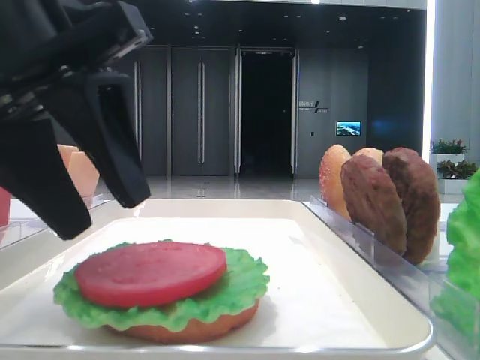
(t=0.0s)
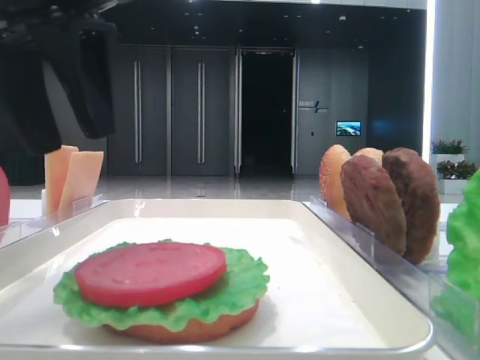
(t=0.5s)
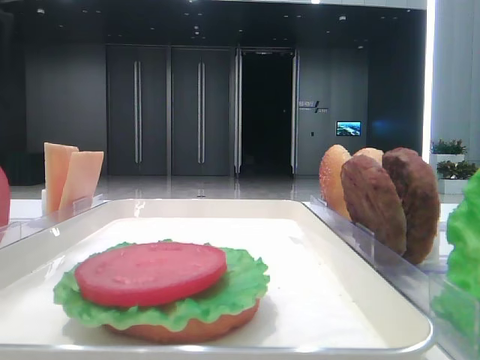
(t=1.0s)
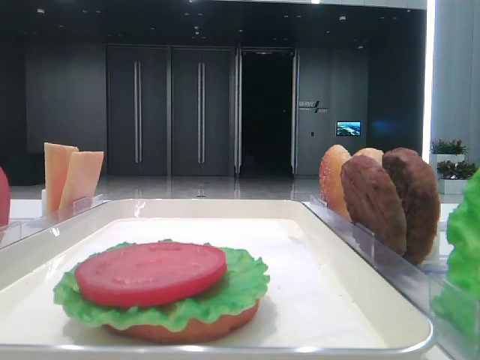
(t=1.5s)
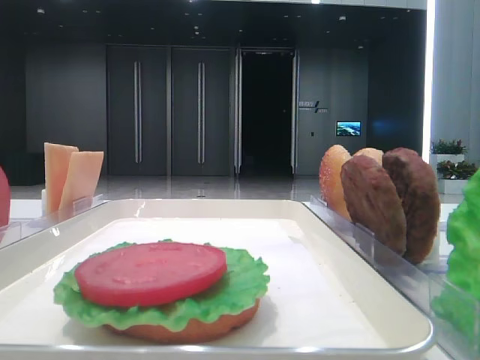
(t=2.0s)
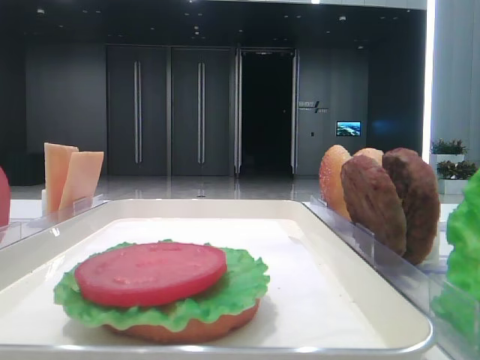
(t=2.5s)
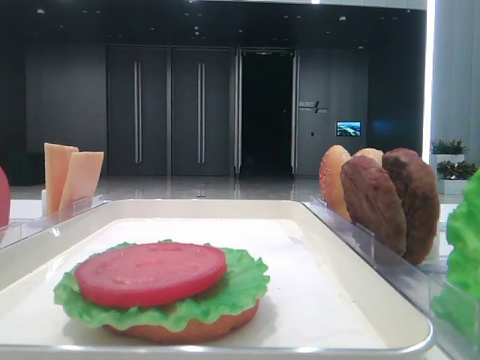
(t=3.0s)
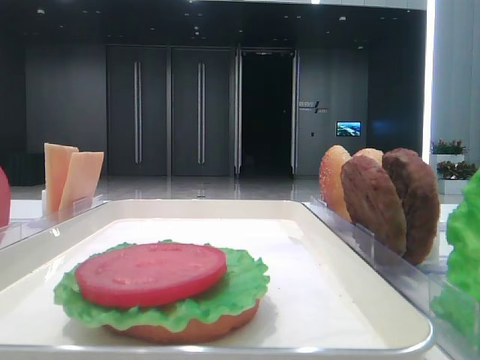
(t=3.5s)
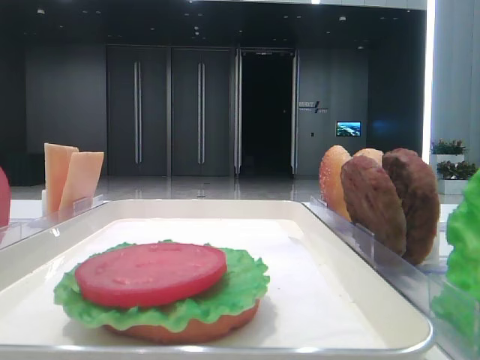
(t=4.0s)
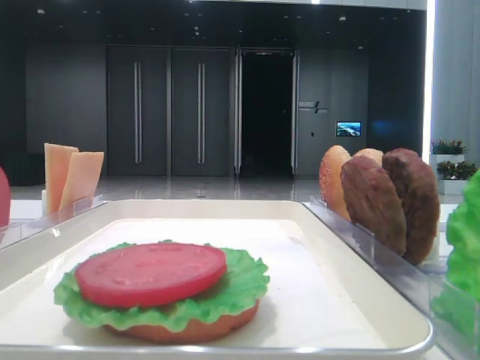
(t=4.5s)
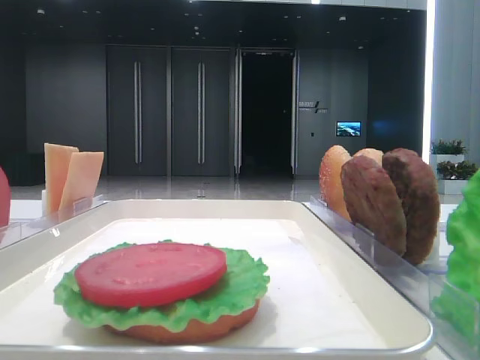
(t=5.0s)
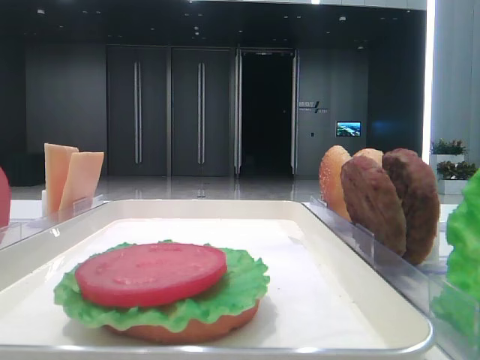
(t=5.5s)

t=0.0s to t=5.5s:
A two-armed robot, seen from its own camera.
t=0.0s to t=2.0s: The left gripper is displaced to the left and upward by about 20 cm.

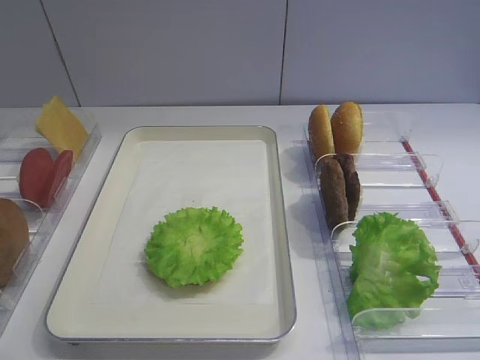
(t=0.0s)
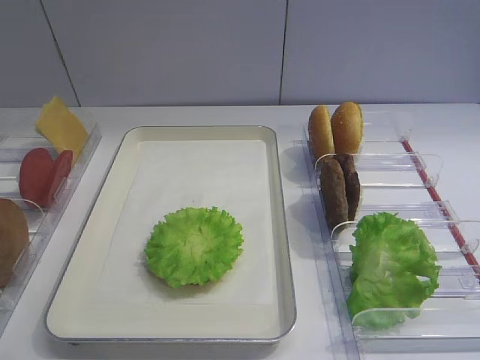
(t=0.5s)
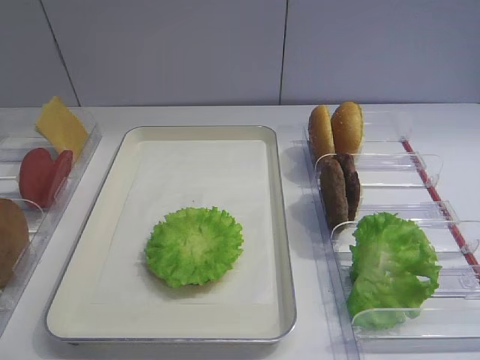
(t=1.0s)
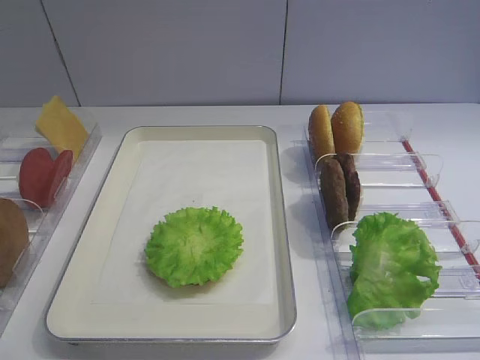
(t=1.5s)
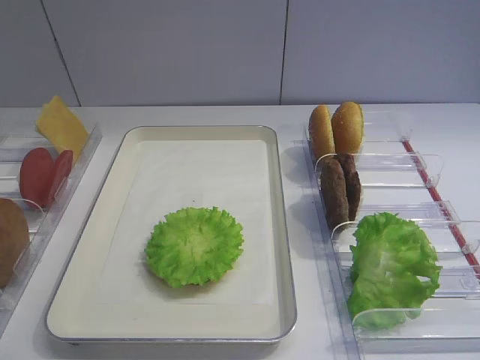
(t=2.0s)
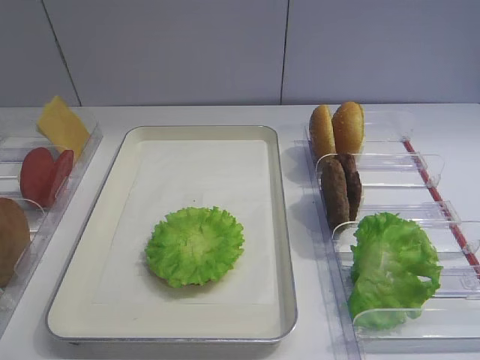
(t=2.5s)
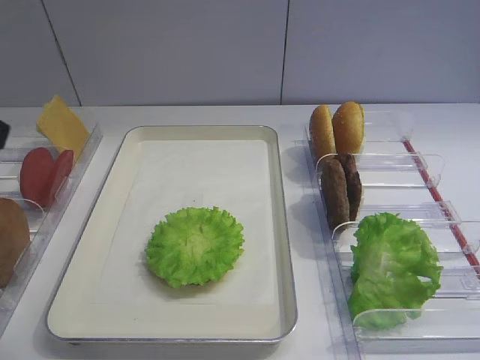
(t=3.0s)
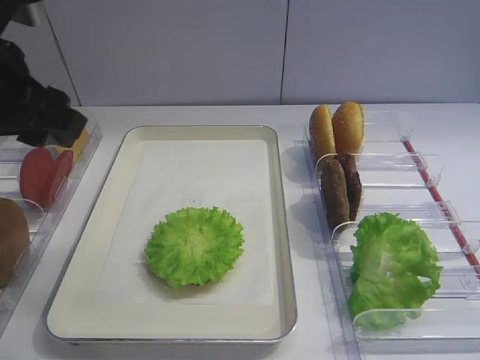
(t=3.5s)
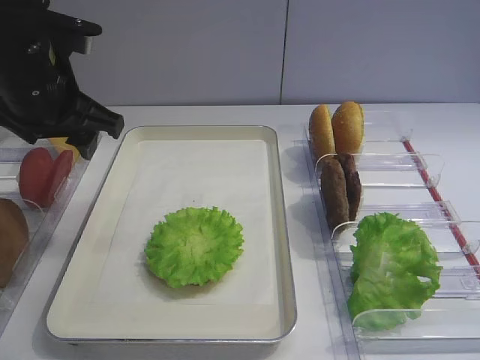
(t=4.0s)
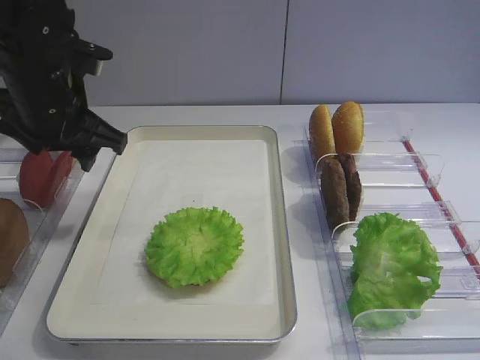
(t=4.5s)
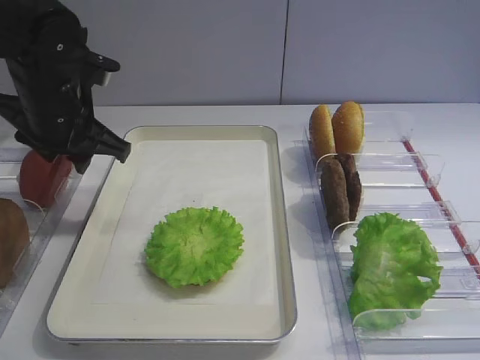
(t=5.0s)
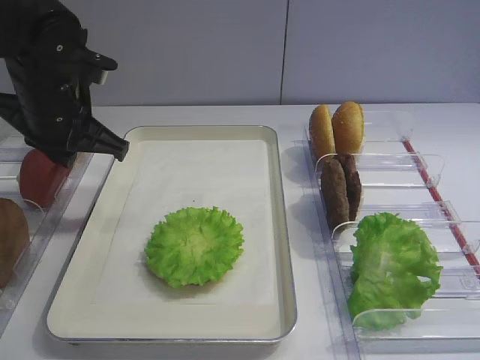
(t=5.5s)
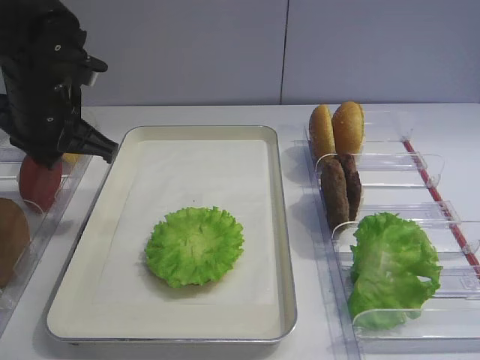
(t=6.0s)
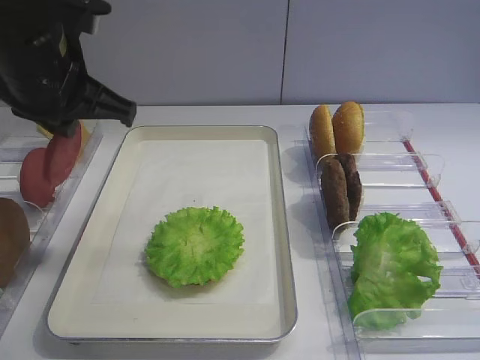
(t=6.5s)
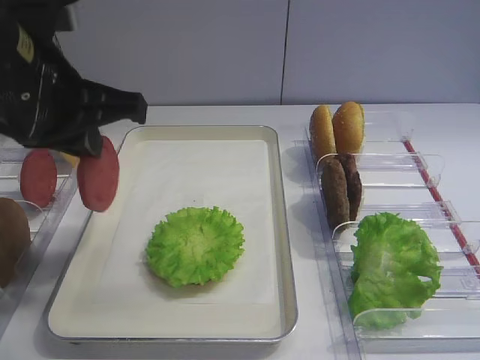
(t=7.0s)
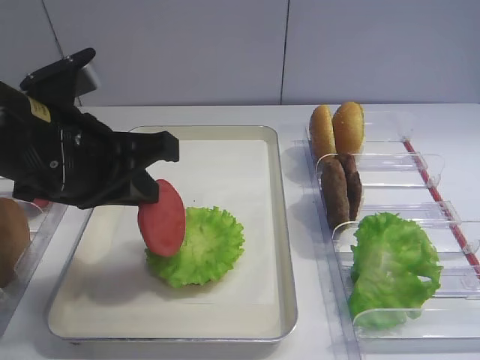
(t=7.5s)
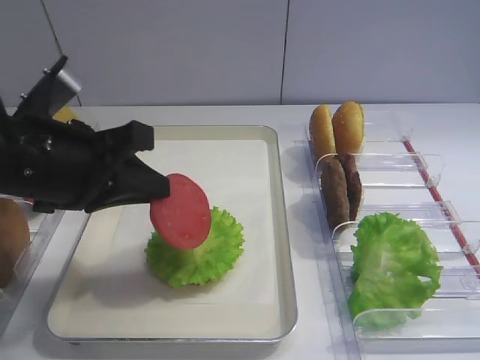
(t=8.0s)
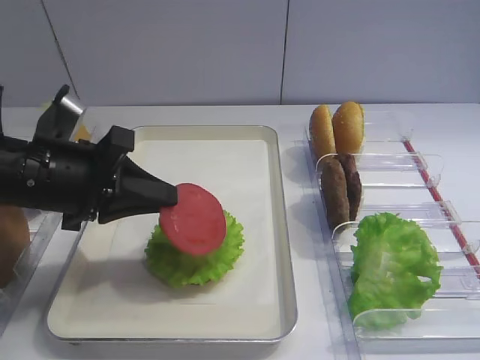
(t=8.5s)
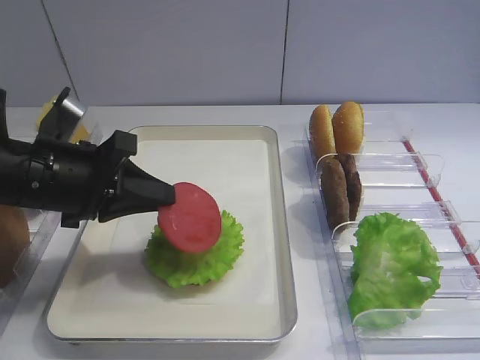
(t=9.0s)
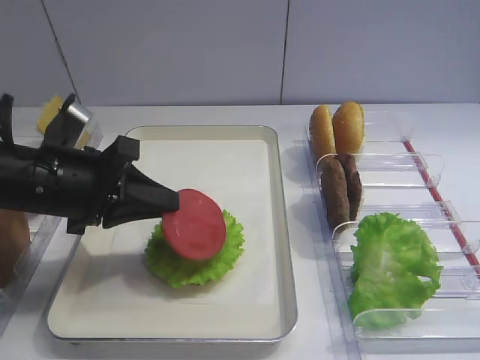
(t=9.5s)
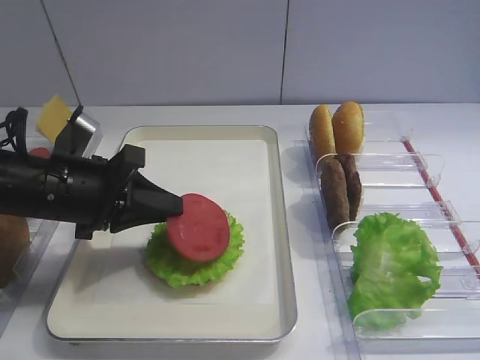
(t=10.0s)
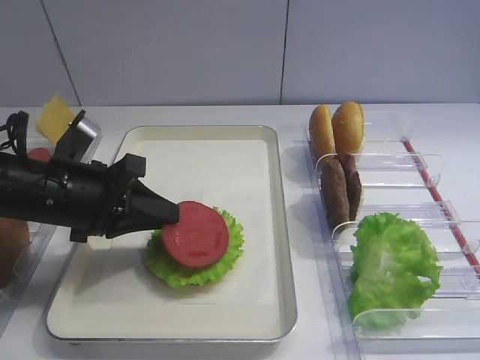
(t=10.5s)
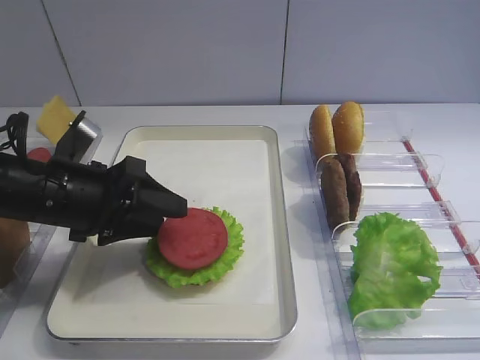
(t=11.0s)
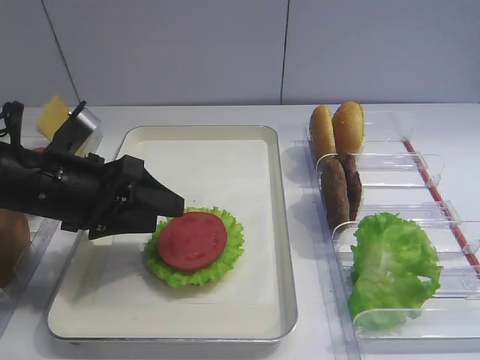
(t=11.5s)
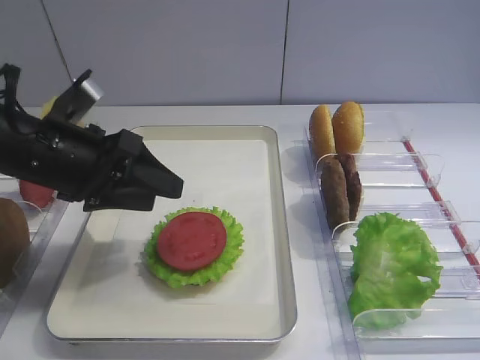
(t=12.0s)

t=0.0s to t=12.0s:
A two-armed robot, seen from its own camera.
Step, t=0.0s to t=6.0s: Pick up the tomato slice with the left gripper.
Step, t=6.5s to t=11.5s: Place the tomato slice on the lettuce leaf with the left gripper.
t=2.0s to t=4.0s: The left gripper moves forward, some 35 cm.
t=4.0s to t=6.0s: The left gripper closes up.
t=6.0s to t=8.0s: The left gripper travels backward by roughly 10 cm.
t=8.0s to t=10.0s: The left gripper goes about 5 cm downward.
t=10.0s to t=12.0s: The left gripper opens.

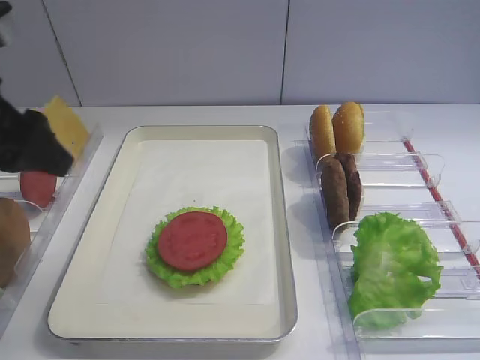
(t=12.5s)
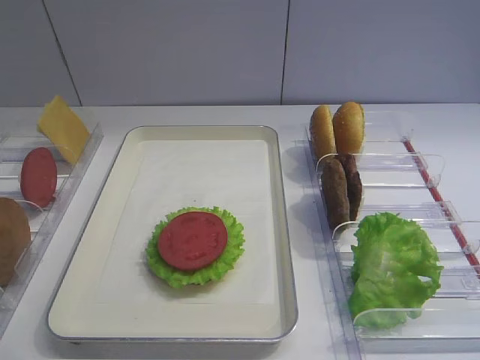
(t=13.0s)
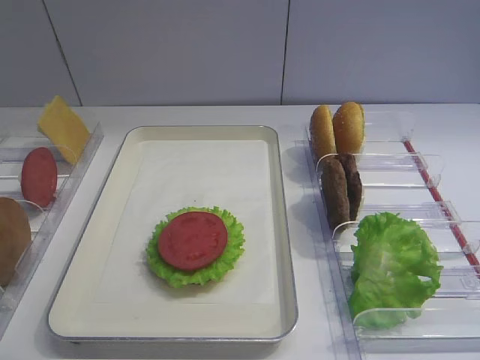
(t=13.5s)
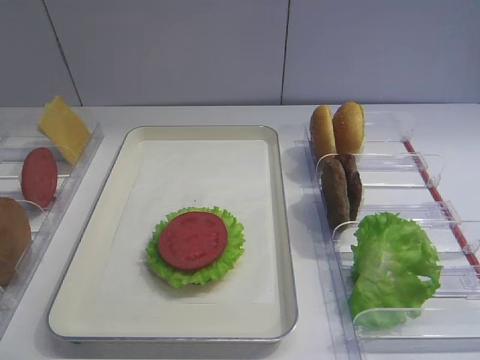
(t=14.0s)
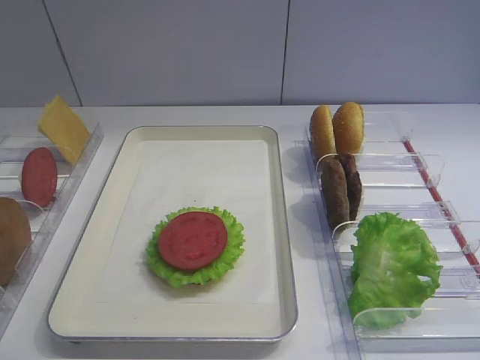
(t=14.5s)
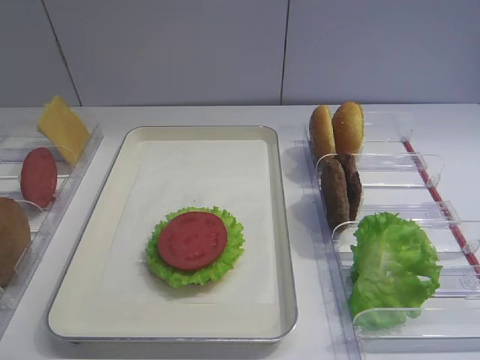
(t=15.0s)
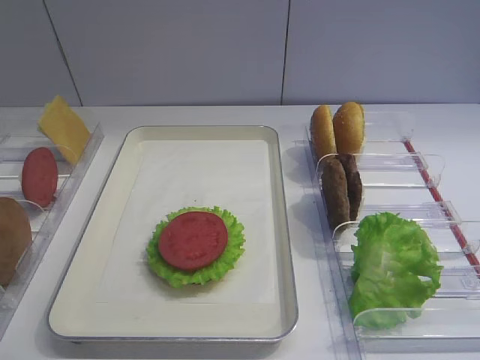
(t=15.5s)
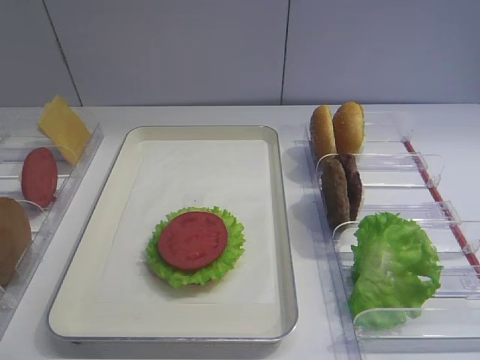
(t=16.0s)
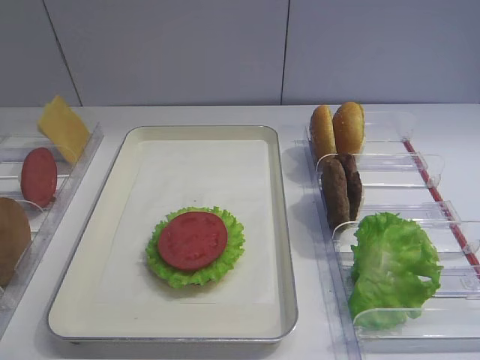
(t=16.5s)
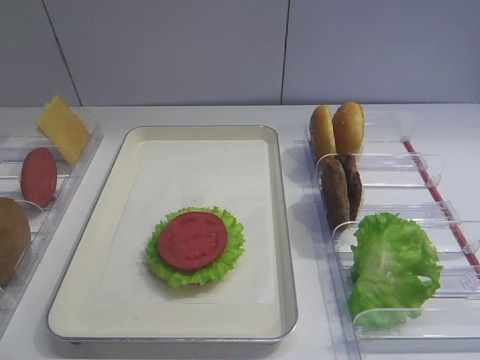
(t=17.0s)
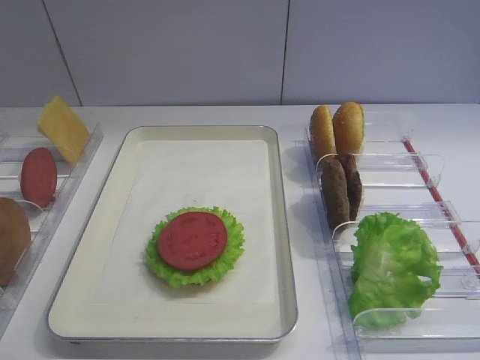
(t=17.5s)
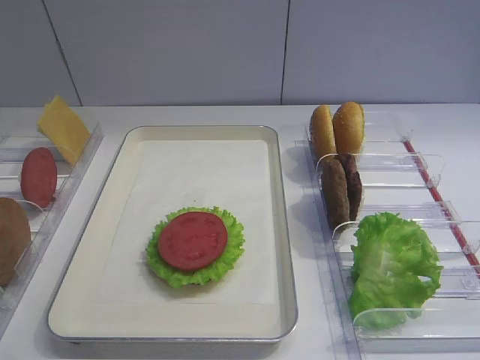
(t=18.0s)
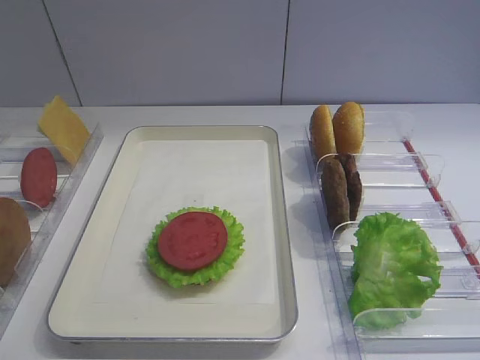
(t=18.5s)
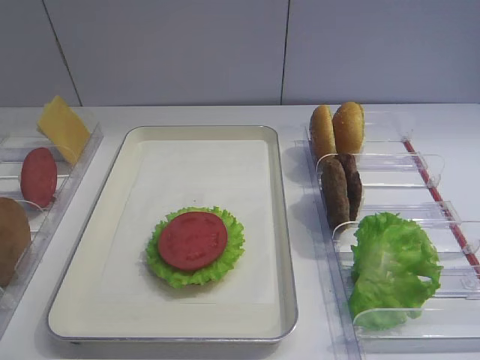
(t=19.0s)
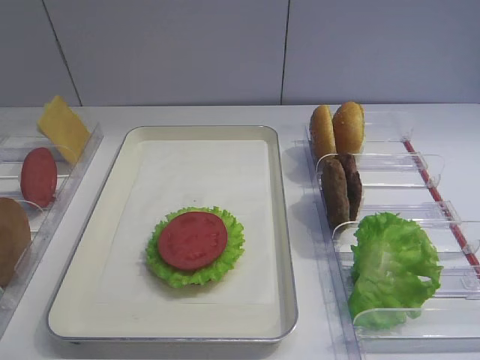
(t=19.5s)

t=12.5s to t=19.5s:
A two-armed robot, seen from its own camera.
t=12.5s to t=14.5s: The left gripper moves backward, about 25 cm.
t=17.5s to t=19.5s: Both grippers stay about where they are.

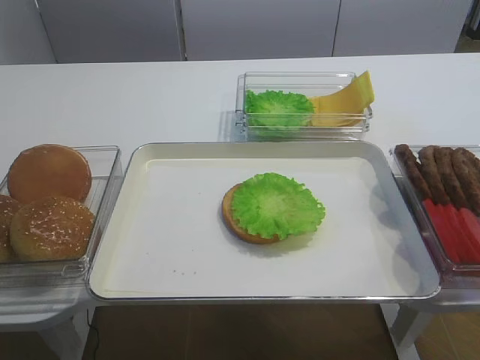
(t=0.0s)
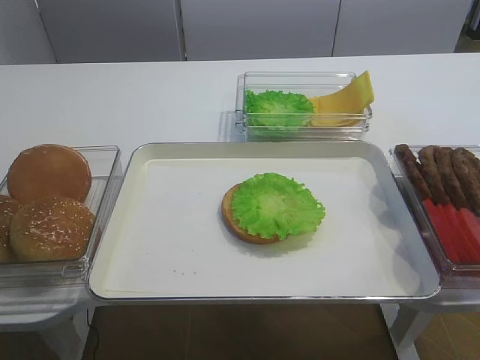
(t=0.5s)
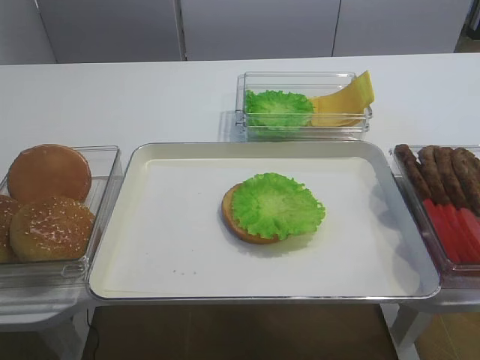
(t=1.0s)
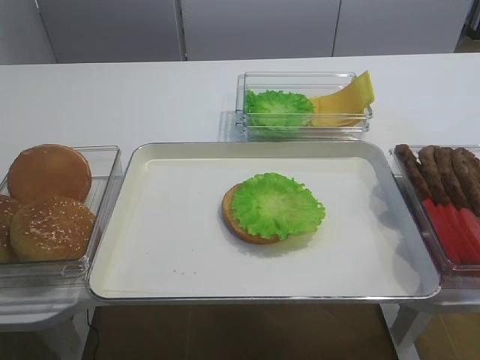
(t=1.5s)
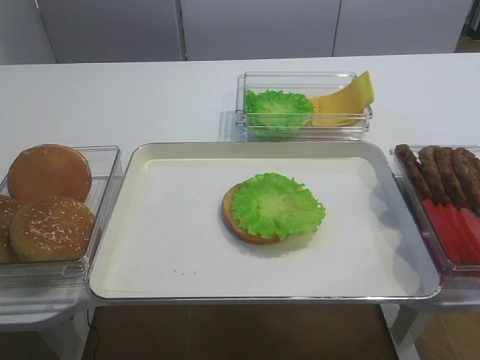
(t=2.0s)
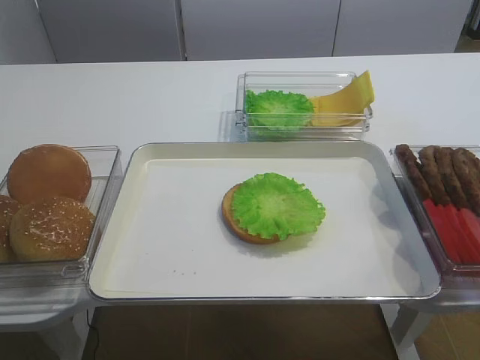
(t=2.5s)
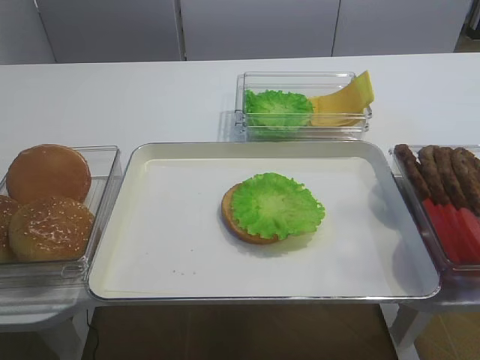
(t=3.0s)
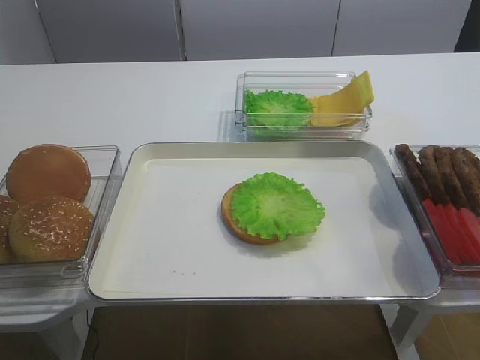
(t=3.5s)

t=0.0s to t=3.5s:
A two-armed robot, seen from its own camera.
t=2.0s to t=3.5s: The right gripper is displaced forward and upward by some 20 cm, and opens its fingers.
